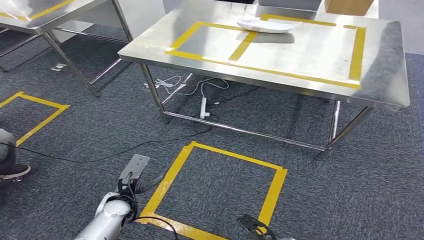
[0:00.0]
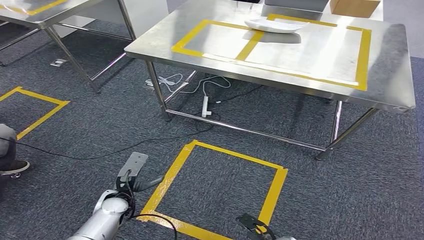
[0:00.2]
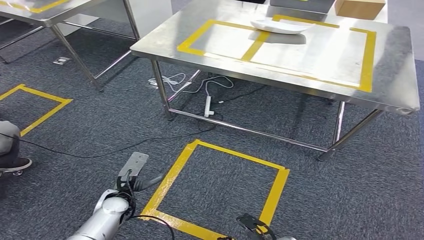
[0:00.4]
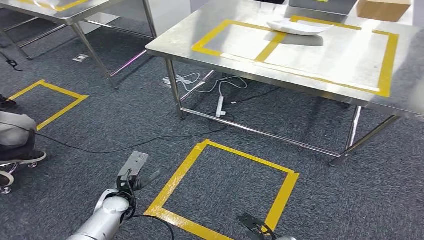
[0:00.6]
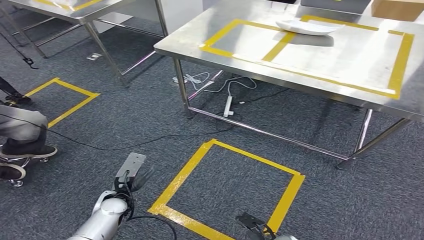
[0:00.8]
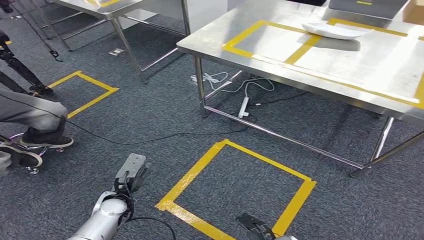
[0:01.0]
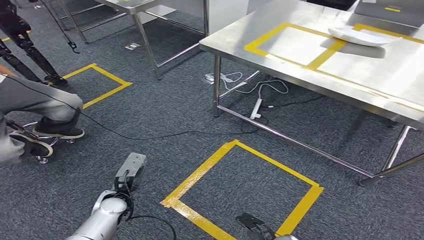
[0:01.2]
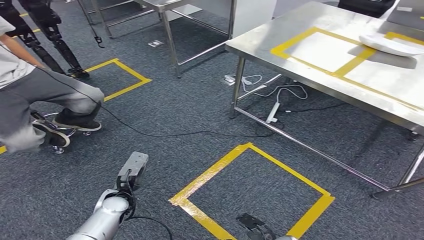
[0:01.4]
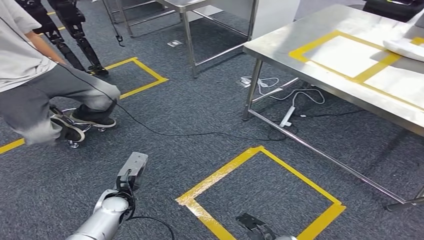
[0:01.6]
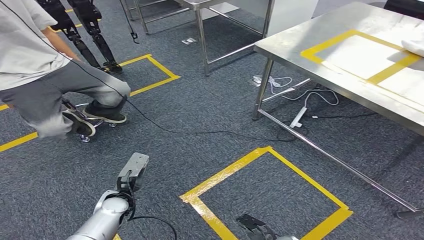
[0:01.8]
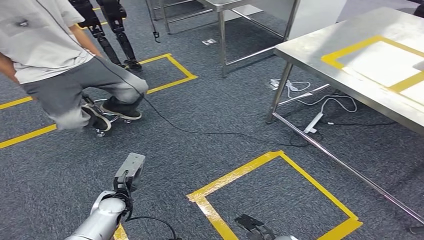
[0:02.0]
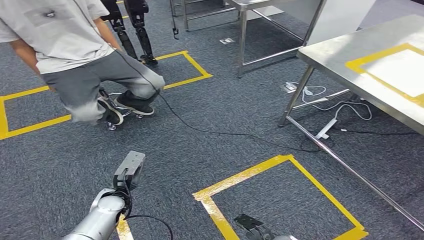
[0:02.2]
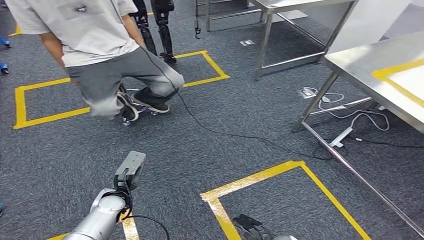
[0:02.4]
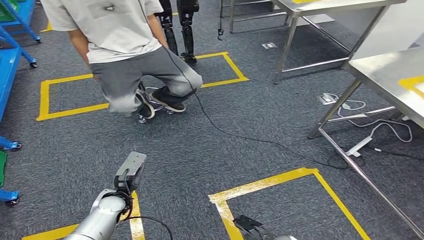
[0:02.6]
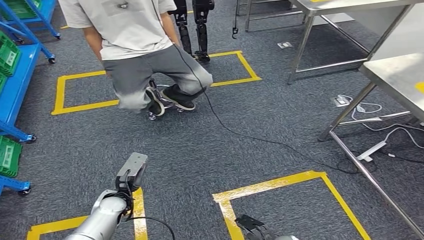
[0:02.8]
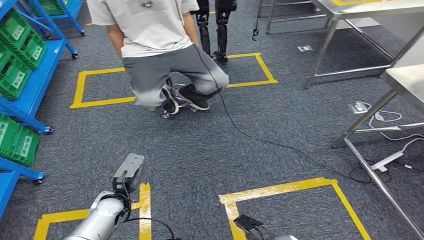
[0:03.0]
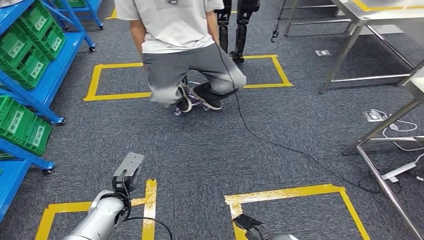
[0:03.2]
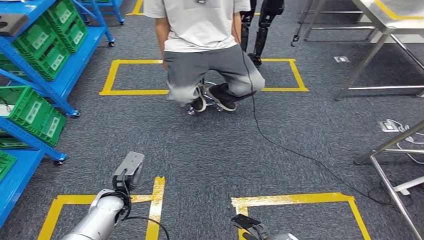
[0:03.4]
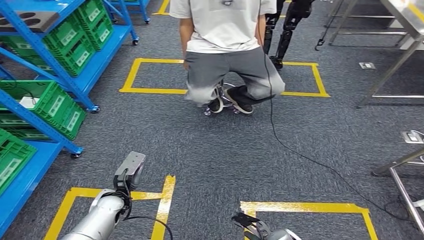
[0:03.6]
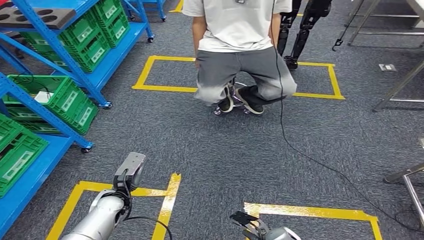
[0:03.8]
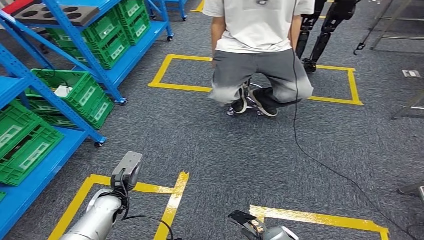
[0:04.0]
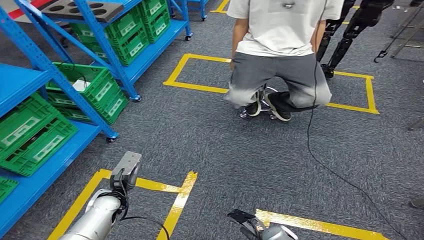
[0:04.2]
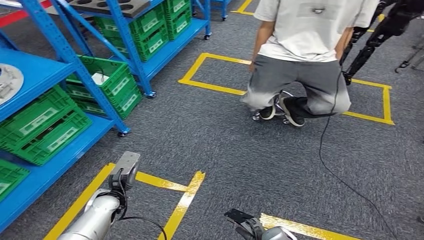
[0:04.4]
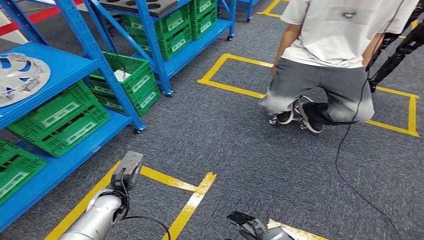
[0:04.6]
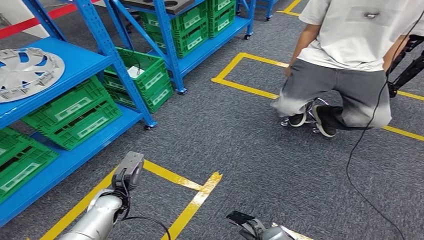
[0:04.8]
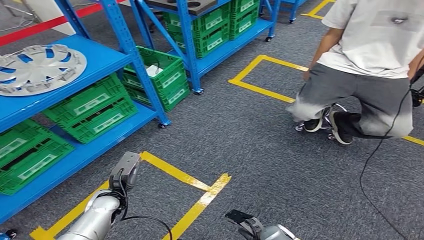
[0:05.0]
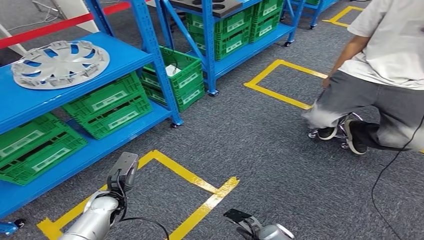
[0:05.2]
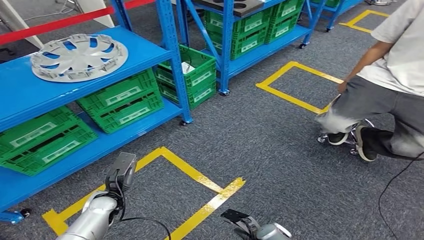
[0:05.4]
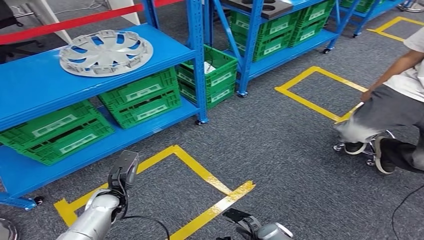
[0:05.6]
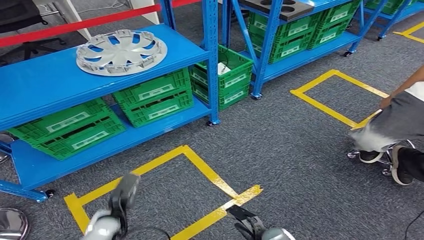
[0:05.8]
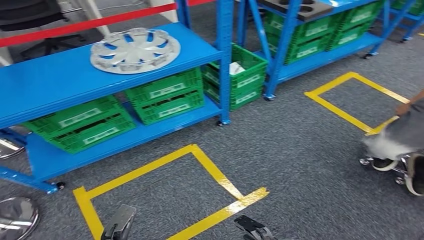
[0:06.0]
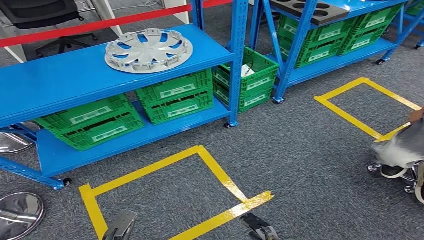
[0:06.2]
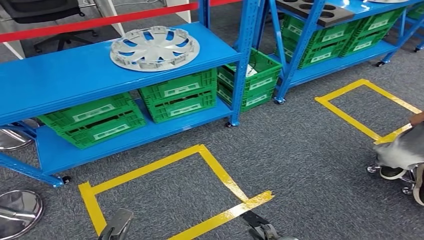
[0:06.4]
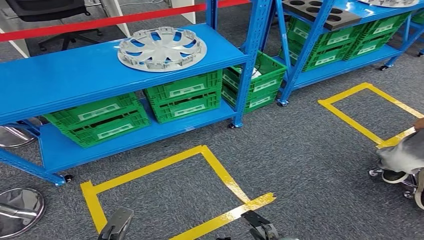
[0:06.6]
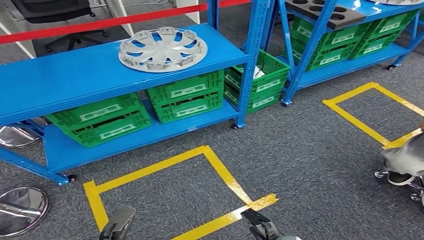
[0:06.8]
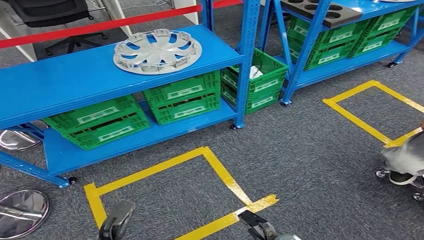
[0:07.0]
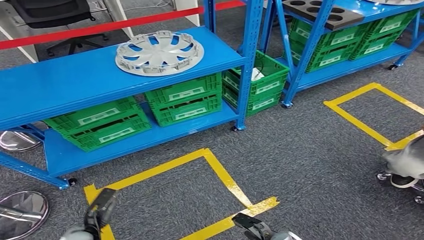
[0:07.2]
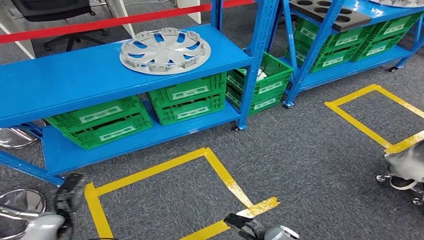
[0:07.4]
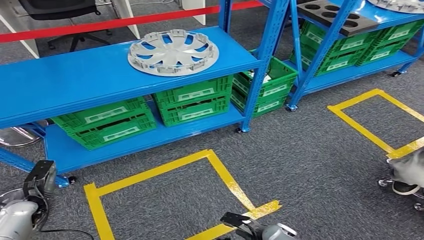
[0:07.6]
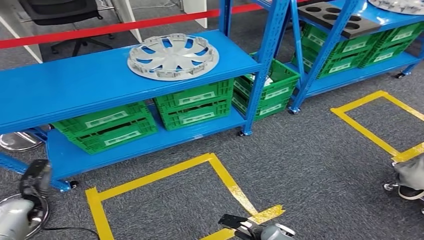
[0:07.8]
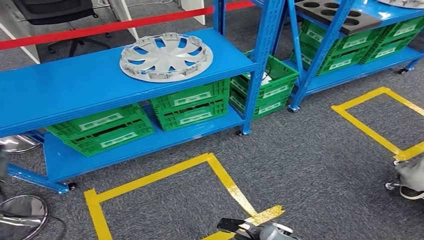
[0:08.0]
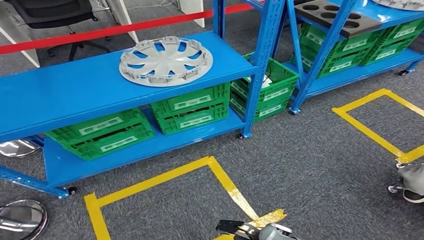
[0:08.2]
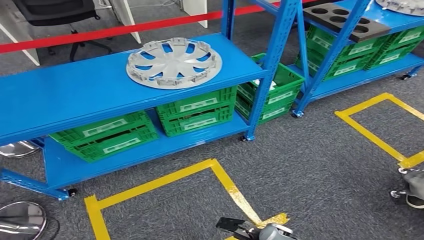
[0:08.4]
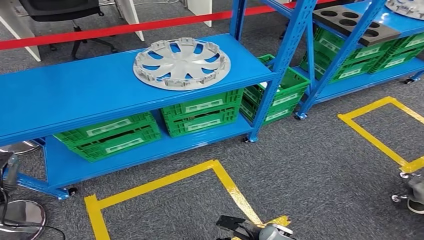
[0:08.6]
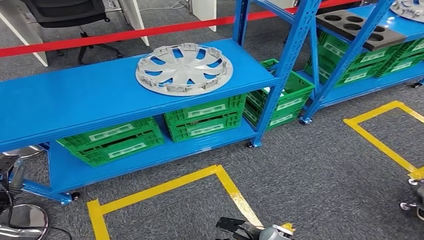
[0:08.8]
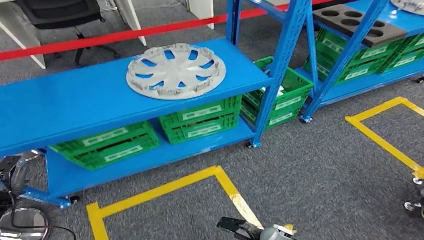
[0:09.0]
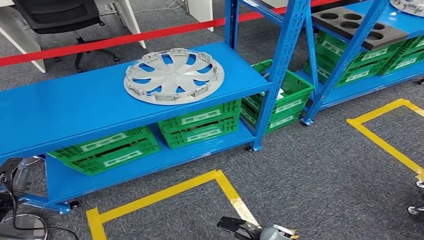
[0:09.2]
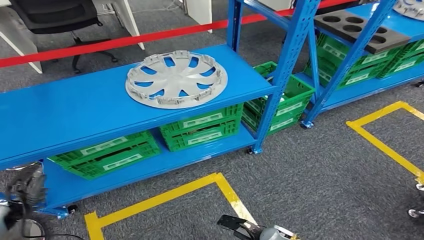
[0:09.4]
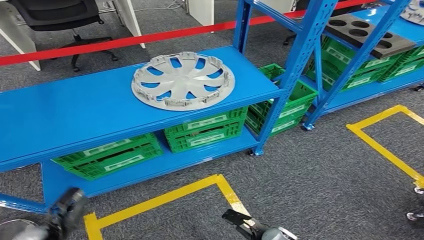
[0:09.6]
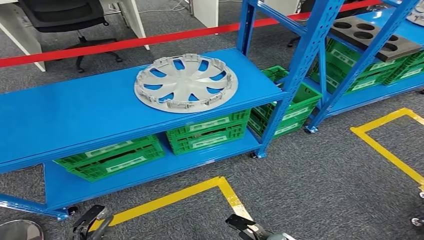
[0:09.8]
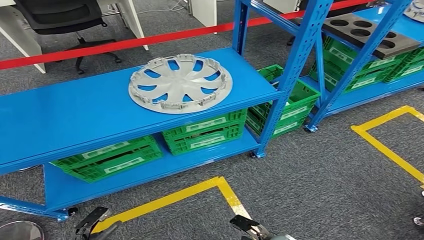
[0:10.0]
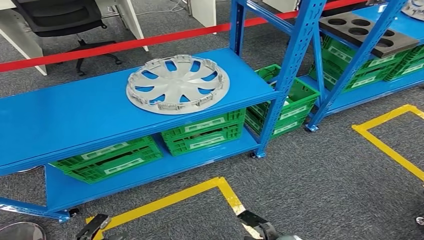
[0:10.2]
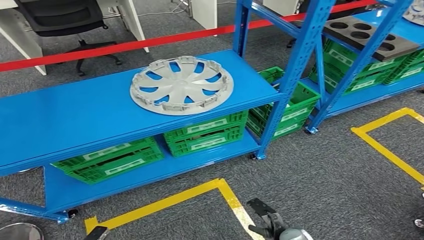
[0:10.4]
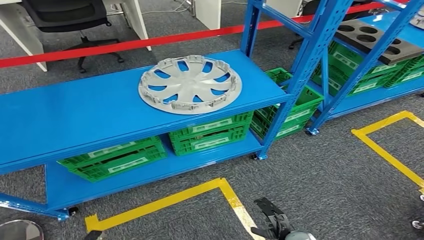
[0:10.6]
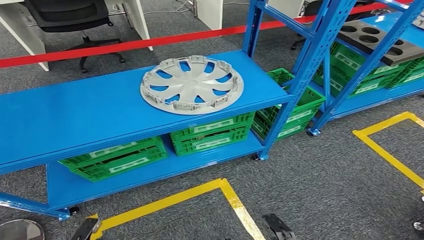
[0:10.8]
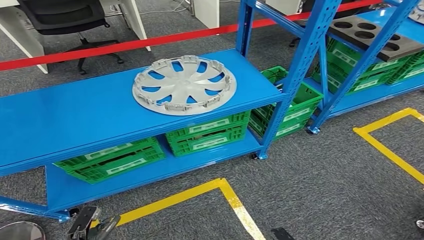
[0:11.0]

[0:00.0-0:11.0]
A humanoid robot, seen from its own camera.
Step, 0:00.0 to 0:11.0: Move to the initial position of the workbench.
